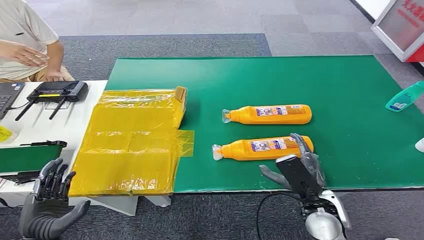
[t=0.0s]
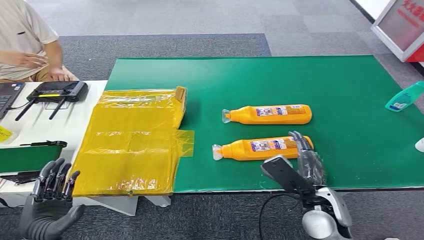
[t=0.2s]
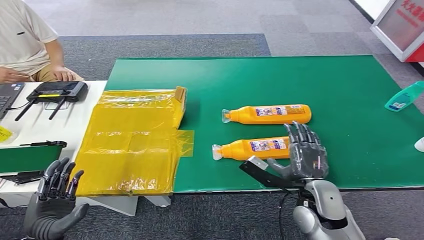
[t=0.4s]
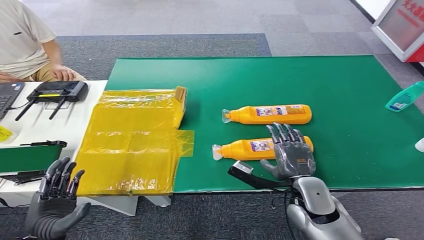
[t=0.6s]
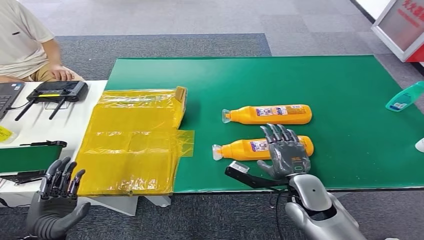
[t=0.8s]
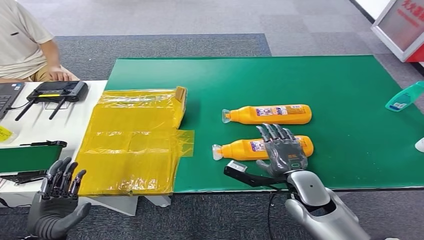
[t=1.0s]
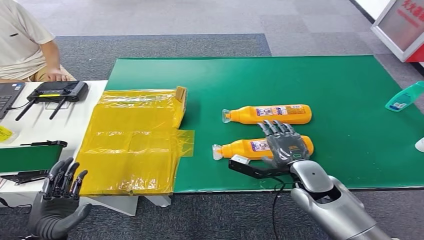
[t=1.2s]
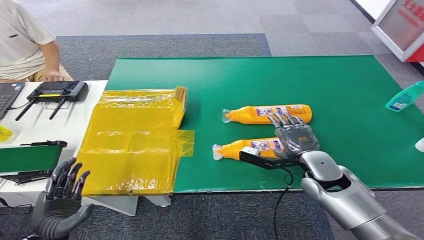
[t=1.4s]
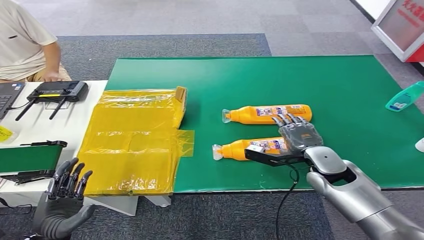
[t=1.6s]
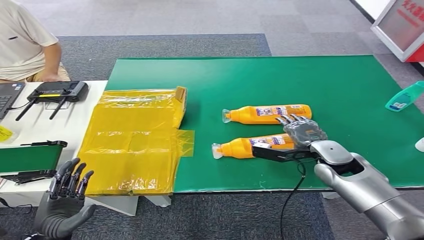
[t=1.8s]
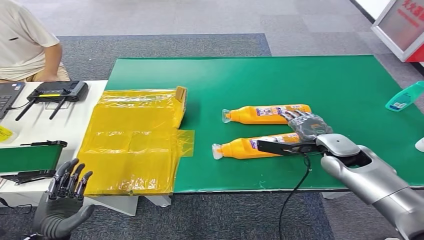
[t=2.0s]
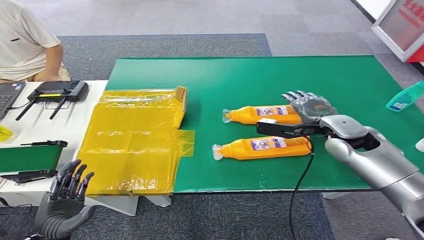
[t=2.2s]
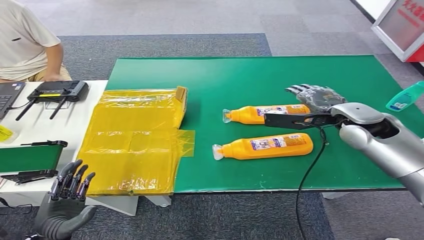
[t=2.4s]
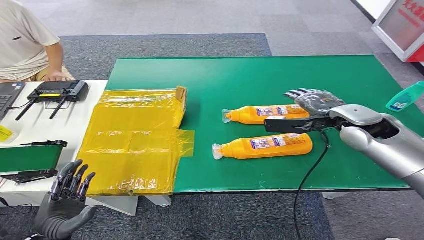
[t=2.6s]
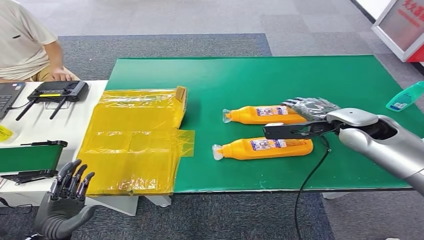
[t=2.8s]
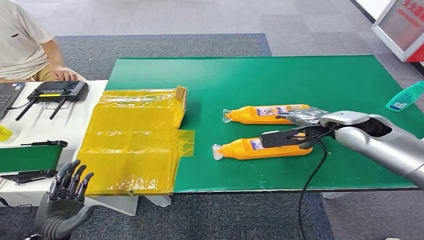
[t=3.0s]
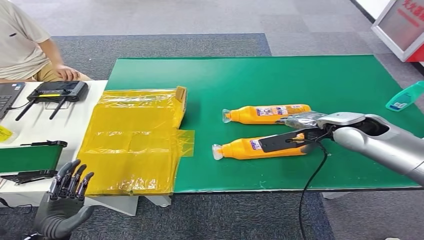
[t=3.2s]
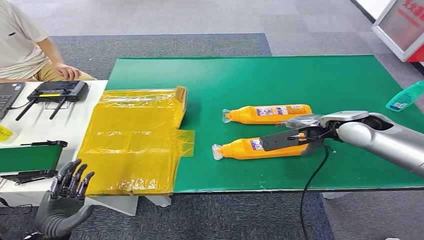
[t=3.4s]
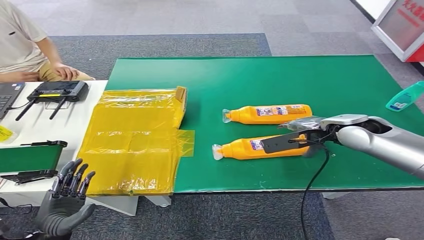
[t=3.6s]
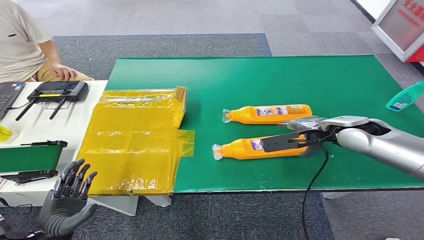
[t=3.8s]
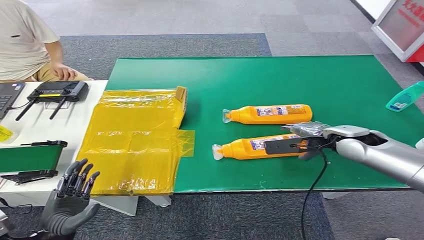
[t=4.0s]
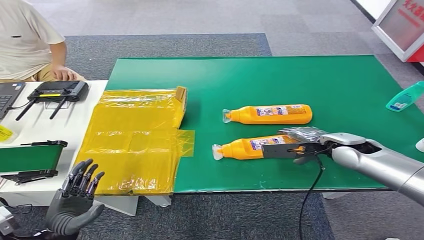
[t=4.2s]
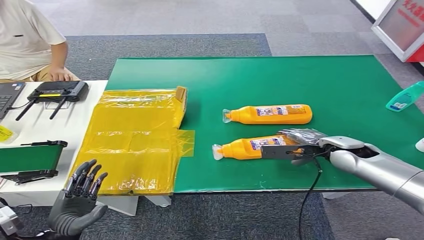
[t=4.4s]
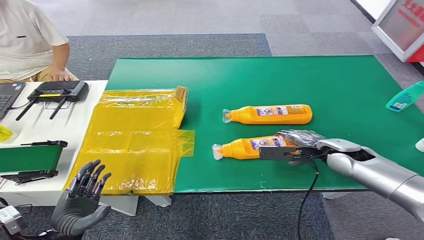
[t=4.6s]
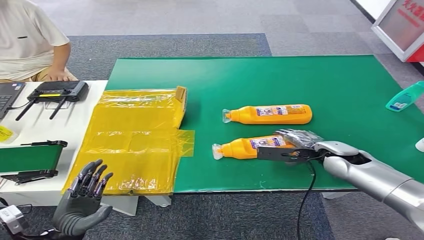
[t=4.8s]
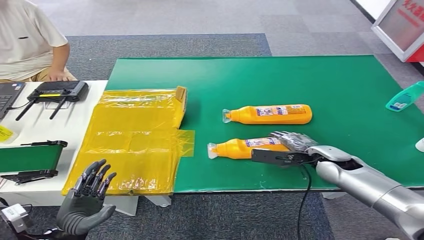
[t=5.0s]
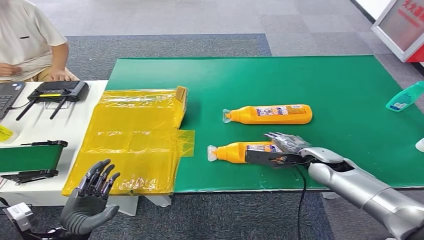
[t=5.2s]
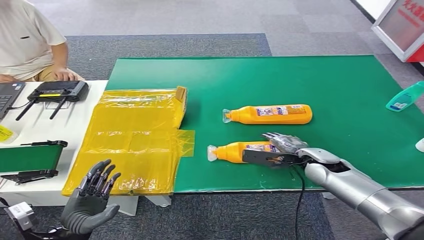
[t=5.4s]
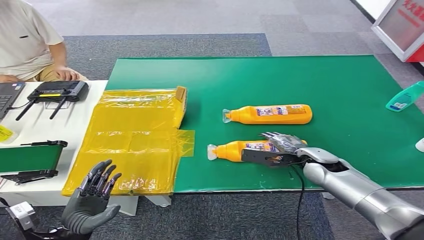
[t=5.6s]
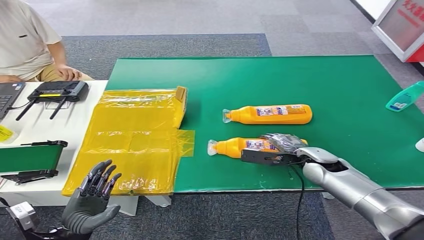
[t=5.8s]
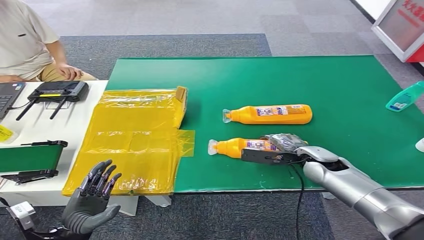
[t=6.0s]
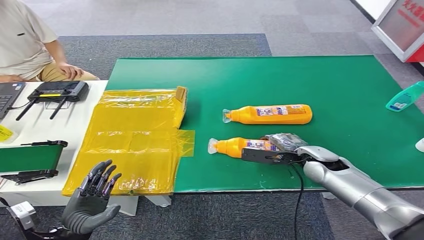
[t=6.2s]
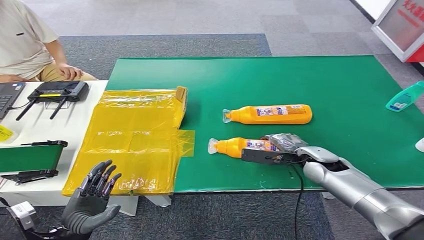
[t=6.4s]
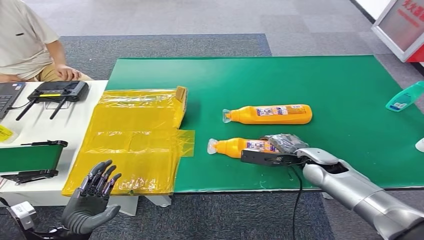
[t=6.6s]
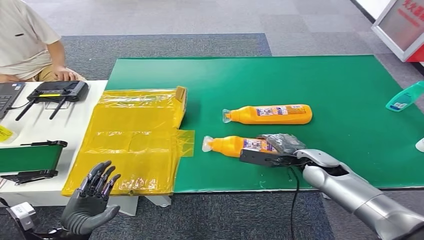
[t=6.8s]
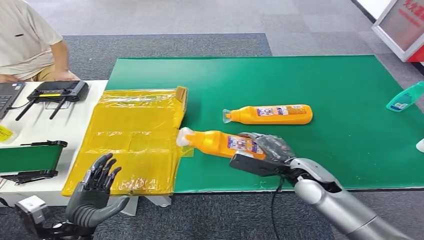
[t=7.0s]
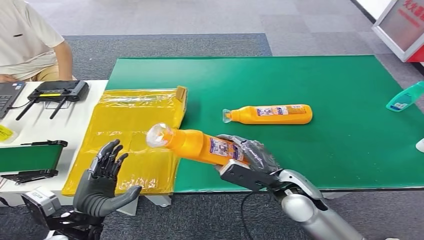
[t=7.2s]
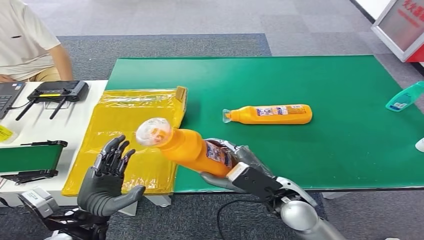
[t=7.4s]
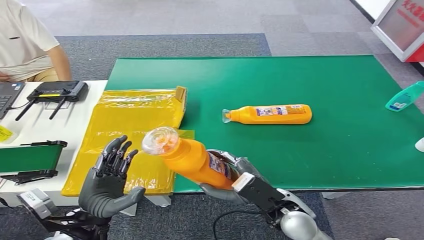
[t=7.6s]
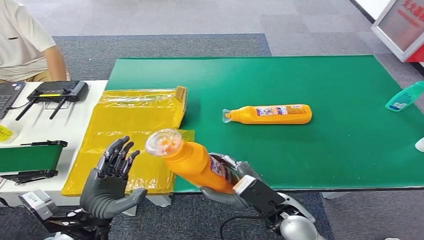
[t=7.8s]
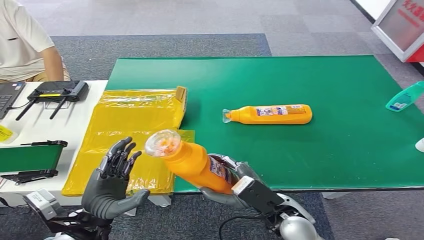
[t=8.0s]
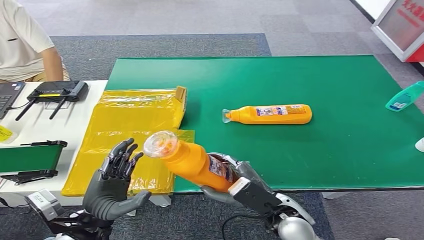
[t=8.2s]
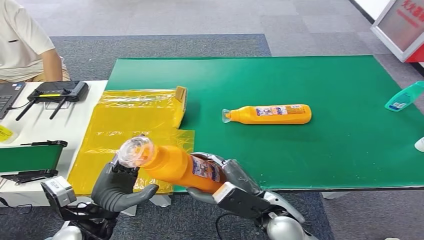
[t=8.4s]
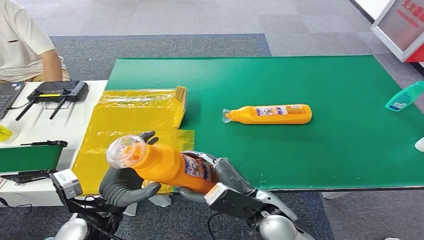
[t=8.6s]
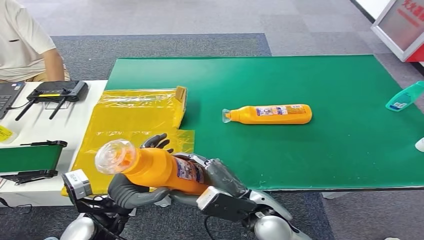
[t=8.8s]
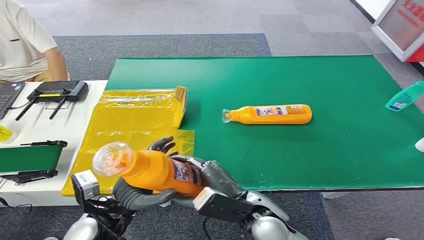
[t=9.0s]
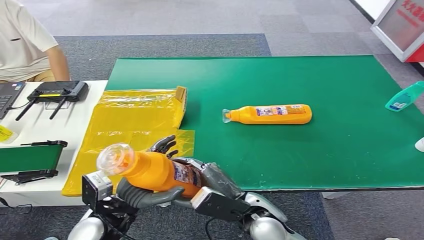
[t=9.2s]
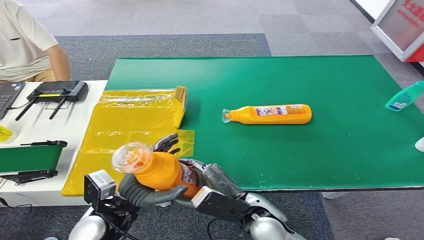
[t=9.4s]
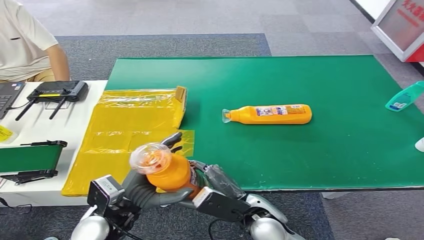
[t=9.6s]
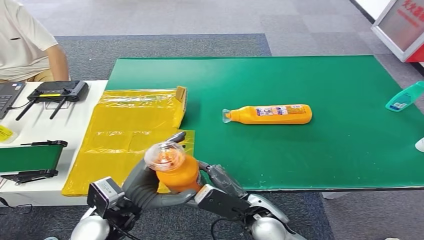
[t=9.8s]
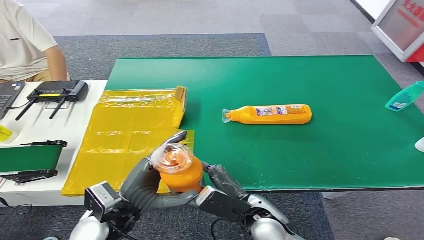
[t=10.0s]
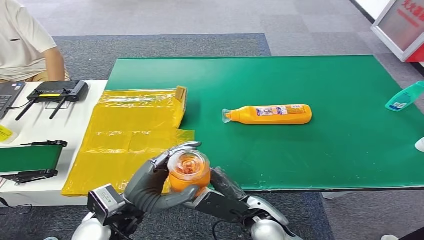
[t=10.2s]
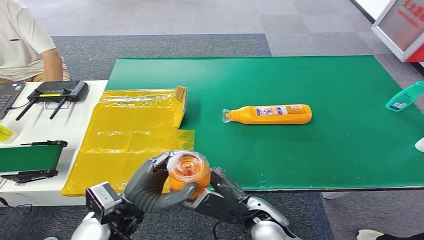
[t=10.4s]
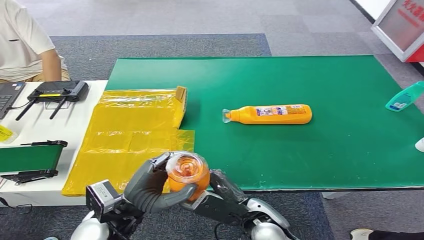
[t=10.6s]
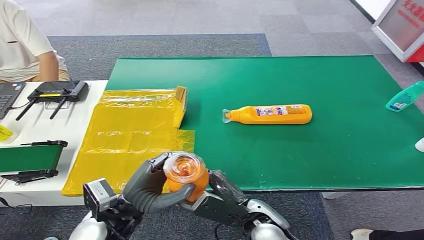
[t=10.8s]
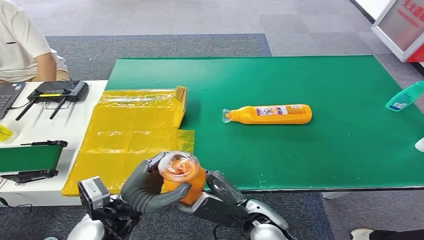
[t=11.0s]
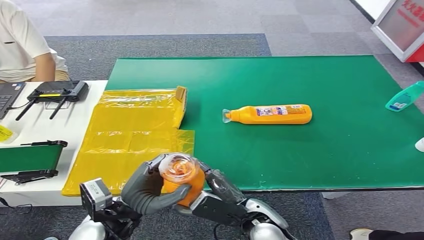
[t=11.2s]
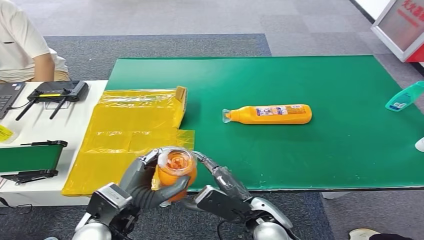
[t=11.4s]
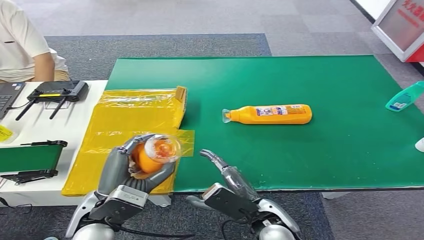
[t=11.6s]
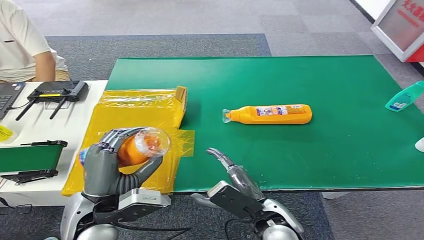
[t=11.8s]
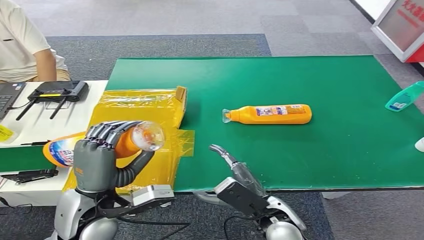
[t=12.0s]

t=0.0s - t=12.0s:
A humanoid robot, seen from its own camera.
Step, t=0.0s - t=8.2s: Pick up the bottle from the table.
t=1.6s - t=3.0s: The right hand heads upward and forward, covering about 15 cm.
t=3.0s - t=4.4s: The right hand heads downward, covering roughly 10 cm.
t=4.4s - t=6.0s: The right hand heads downward, covering approximately 5 cm.
t=7.6s - t=9.0s: The right hand goes approximately 5 cm to the left.
t=9.0s - t=10.4s: There are only small adjustments of the hands.
t=10.4s - t=12.0s: The left hand moves approximately 5 cm.

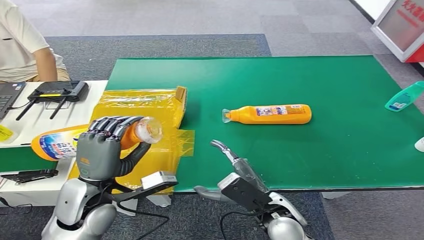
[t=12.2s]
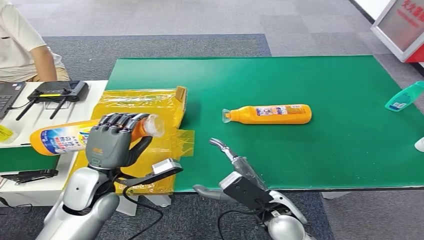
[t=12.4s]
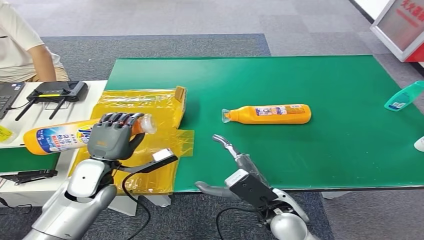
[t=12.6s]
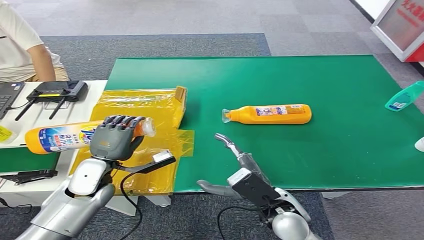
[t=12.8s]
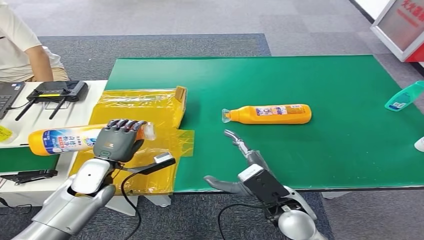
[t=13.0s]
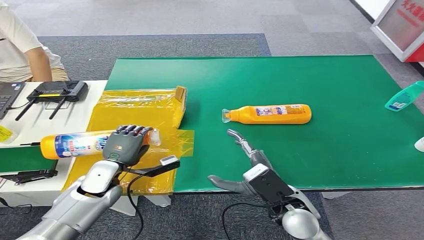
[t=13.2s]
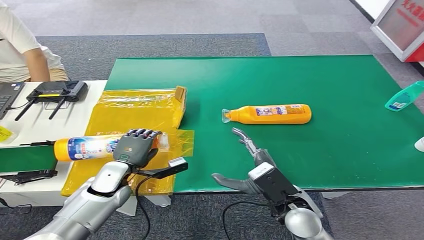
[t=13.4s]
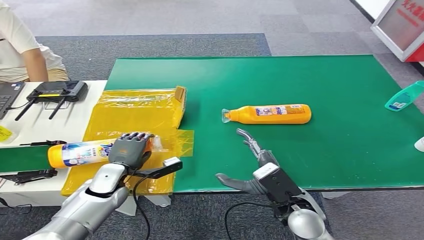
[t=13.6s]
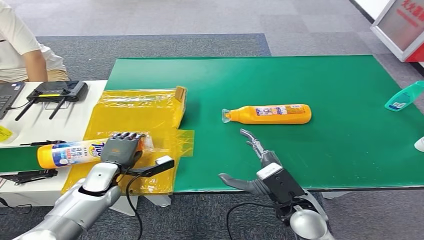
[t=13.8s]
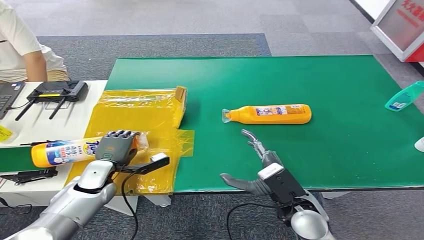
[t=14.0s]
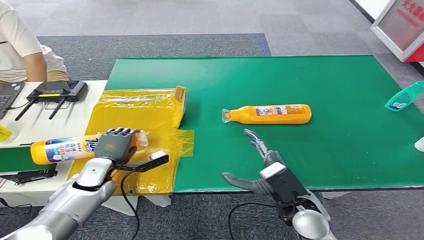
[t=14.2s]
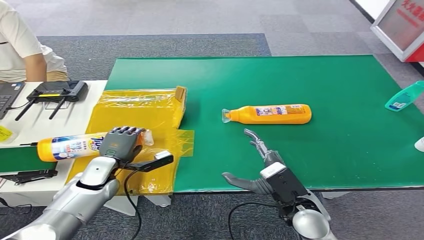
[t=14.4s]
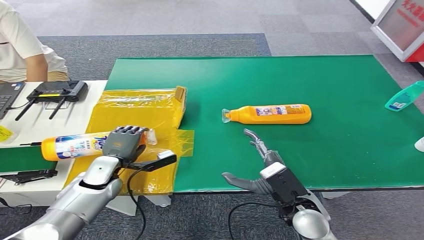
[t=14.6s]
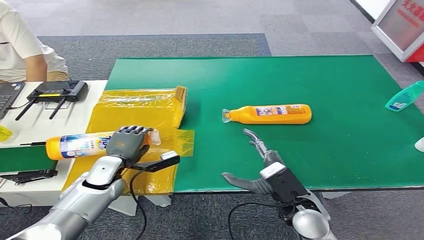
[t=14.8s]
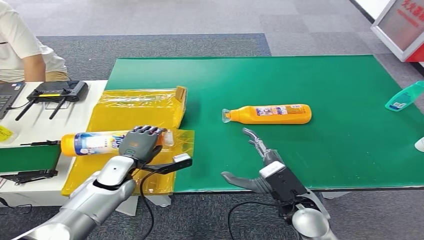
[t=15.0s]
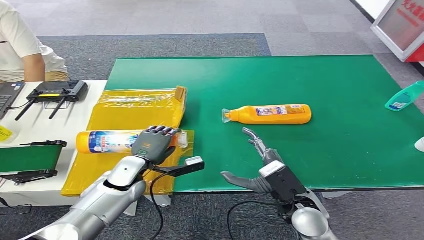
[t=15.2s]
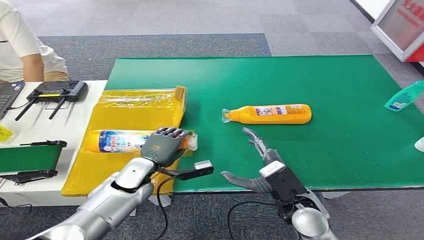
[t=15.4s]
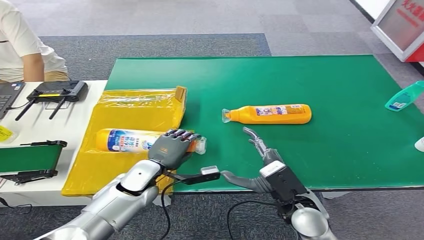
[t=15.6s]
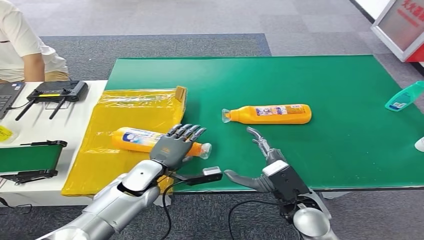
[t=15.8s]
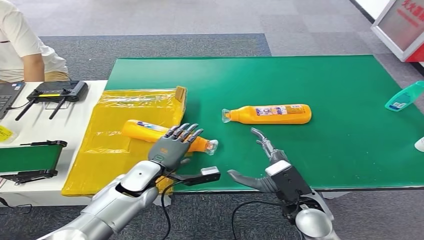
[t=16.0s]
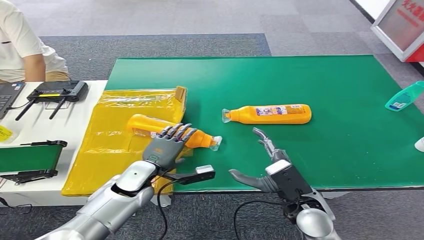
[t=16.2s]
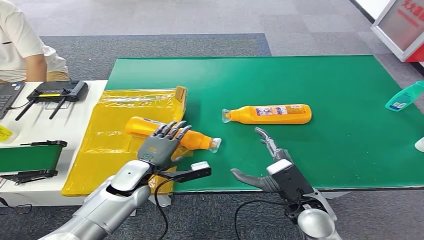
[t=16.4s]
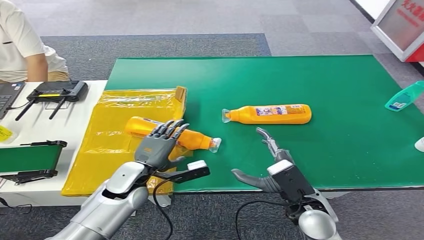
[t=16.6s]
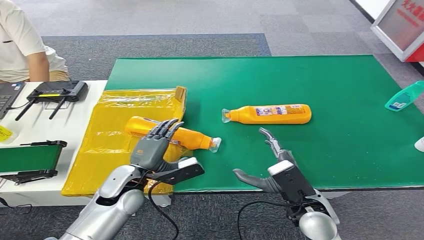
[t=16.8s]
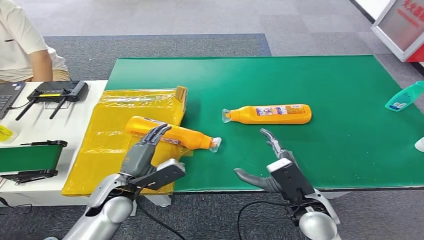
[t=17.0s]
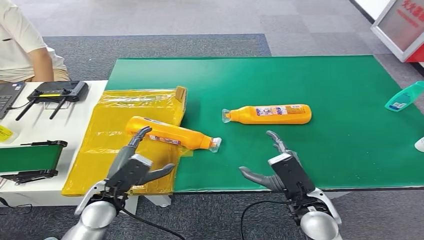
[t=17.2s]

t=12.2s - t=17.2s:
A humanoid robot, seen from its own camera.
Step, t=12.2s - t=17.2s: Turn the bottle to the front side.
t=12.2s - t=13.8s: The left hand is displaced downward and forward by some 15 cm.
t=13.8s - t=15.6s: The left hand travels to the right by about 10 cm.
t=15.6s - t=17.2s: The left hand heads backward and to the left, covering approximately 10 cm.
